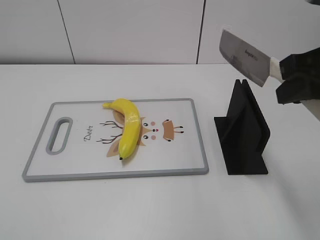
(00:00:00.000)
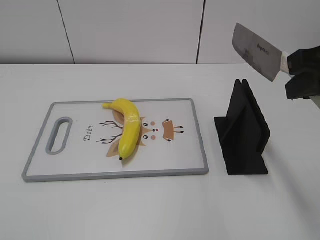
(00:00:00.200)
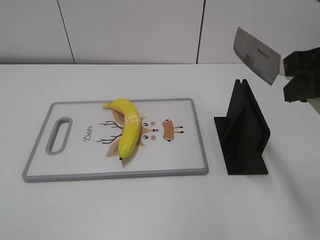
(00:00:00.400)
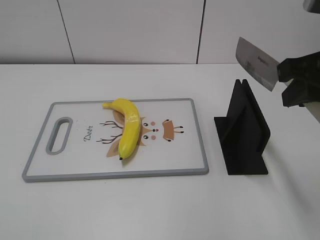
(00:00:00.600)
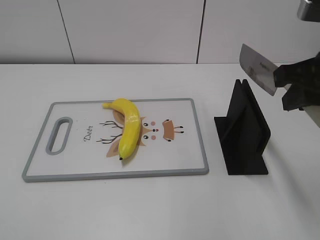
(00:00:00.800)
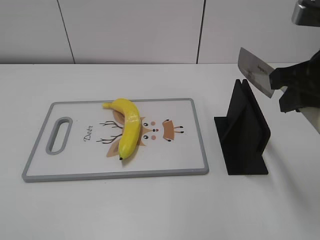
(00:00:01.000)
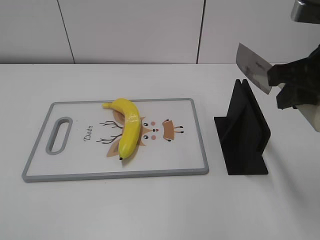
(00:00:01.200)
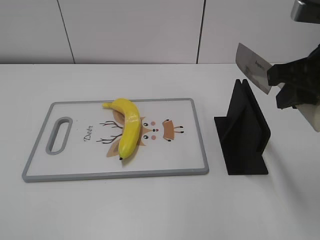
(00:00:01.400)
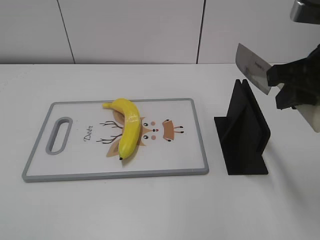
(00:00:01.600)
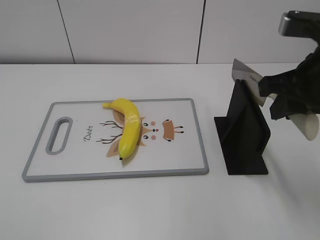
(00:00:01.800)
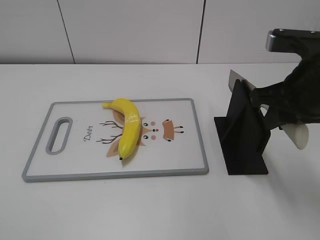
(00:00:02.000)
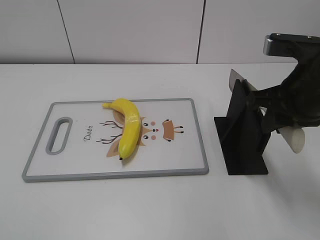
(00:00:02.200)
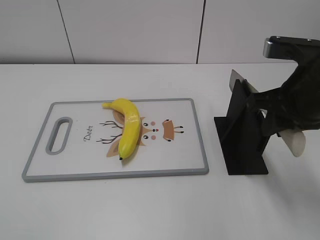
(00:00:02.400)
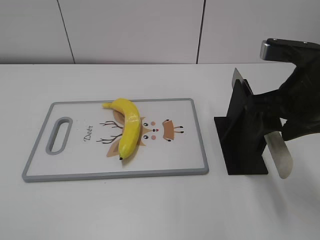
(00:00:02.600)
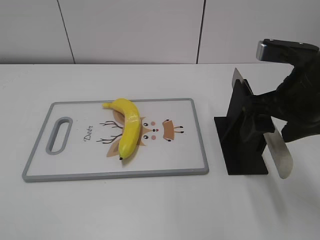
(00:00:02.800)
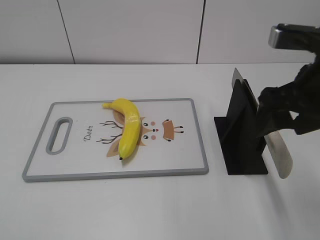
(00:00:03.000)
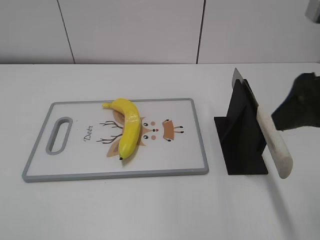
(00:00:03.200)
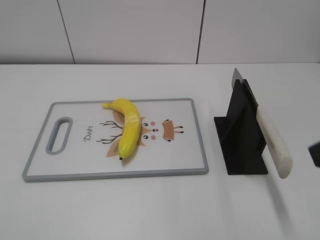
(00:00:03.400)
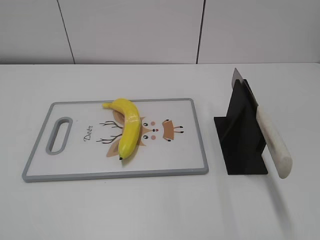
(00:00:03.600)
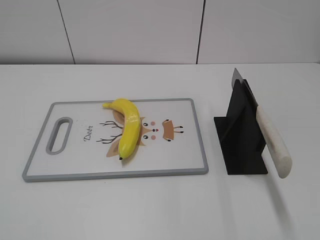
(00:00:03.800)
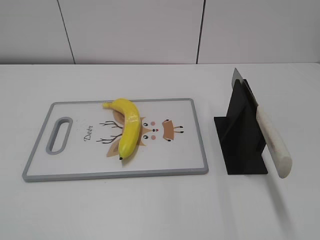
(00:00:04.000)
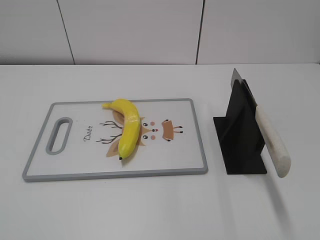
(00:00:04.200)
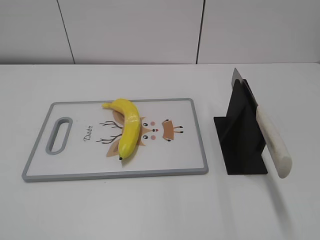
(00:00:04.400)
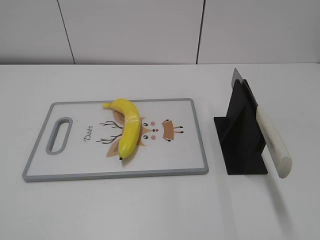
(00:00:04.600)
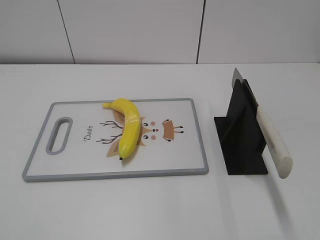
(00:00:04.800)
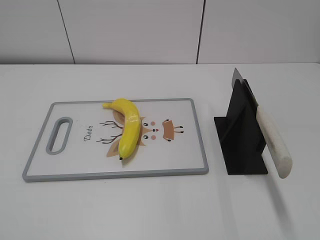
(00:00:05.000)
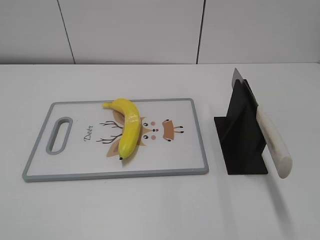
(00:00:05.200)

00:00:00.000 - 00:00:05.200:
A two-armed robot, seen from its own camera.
Task of the whole recording: cut plastic banana.
Step, 00:00:00.400 - 00:00:05.200: Place the knife on the storage rack with your right hand.
00:00:00.000 - 00:00:01.800: The right gripper ends up roughly 5 cm from where it was.
00:00:01.800 - 00:00:03.400: The right gripper travels backward by approximately 10 cm, and opens its fingers.
